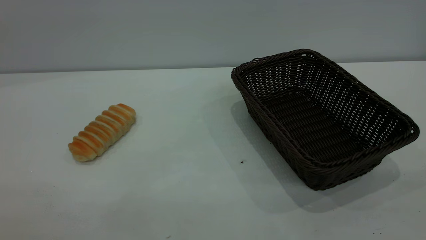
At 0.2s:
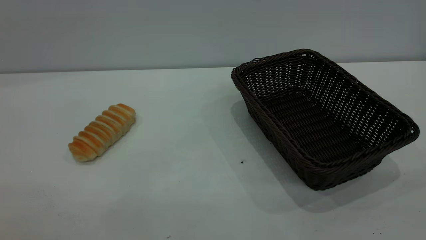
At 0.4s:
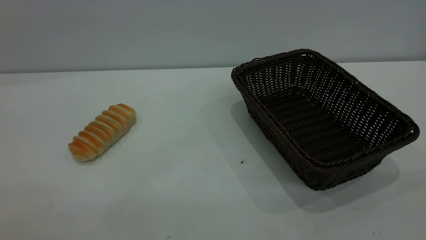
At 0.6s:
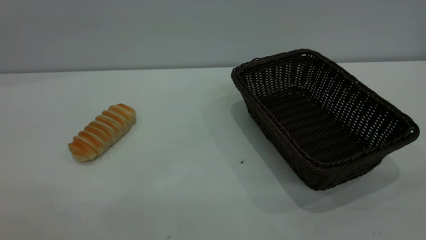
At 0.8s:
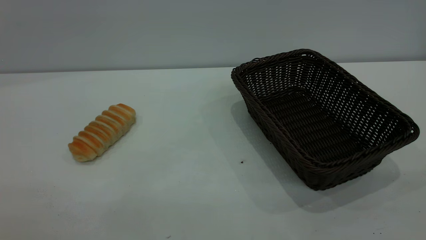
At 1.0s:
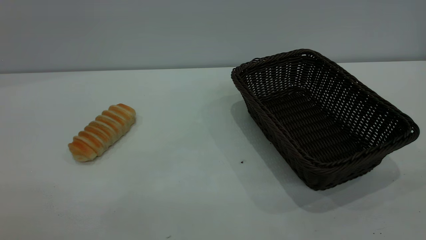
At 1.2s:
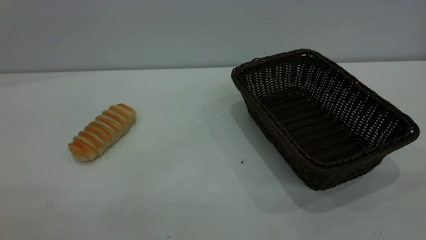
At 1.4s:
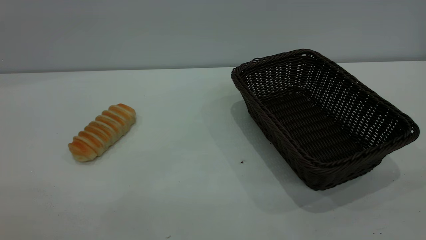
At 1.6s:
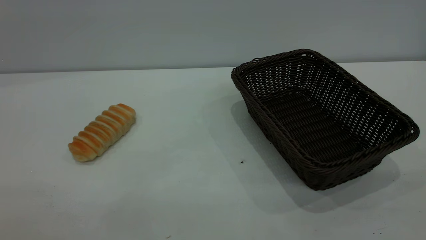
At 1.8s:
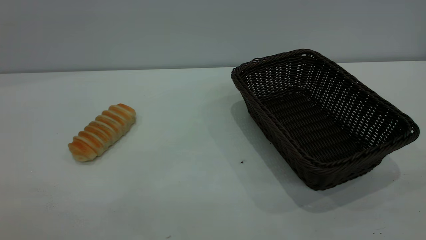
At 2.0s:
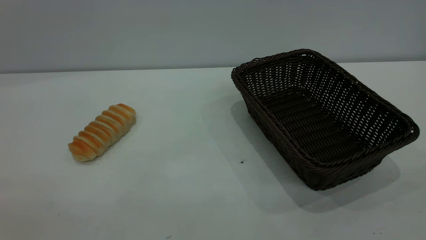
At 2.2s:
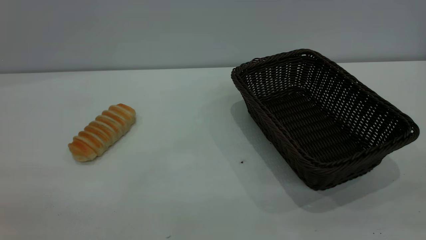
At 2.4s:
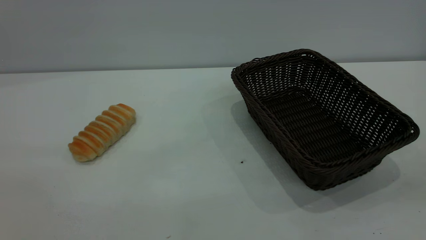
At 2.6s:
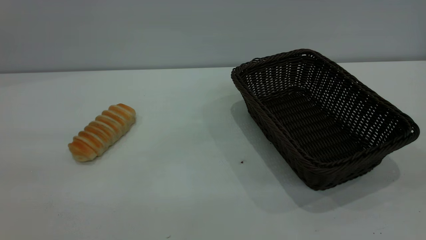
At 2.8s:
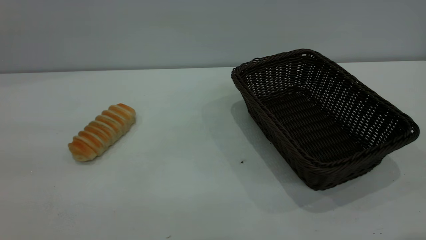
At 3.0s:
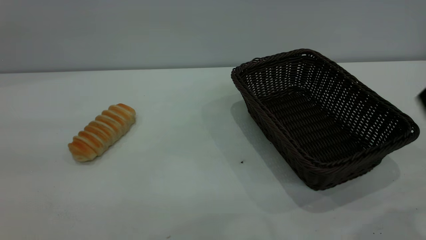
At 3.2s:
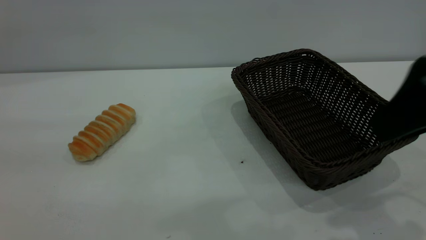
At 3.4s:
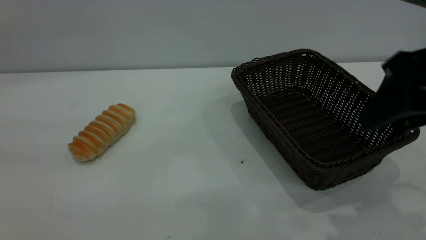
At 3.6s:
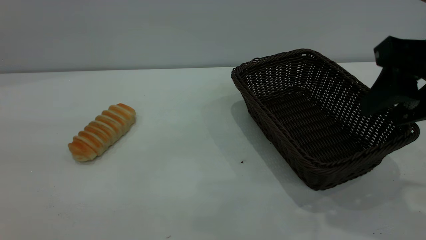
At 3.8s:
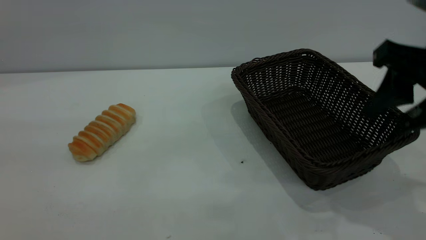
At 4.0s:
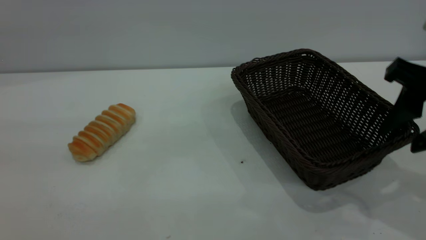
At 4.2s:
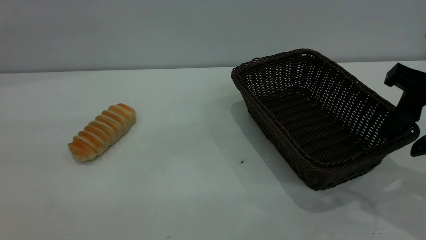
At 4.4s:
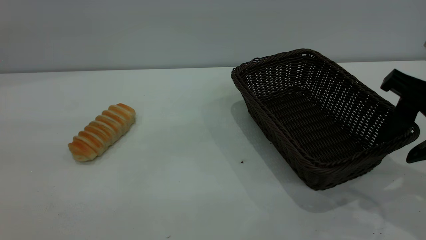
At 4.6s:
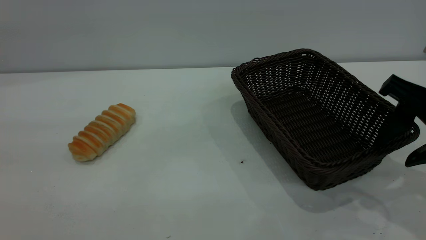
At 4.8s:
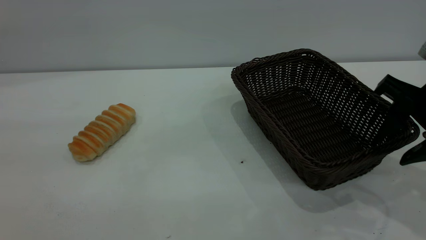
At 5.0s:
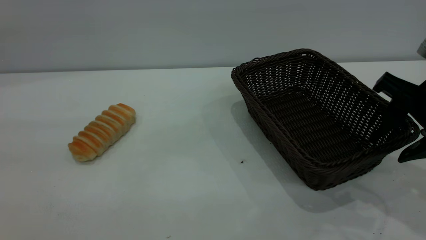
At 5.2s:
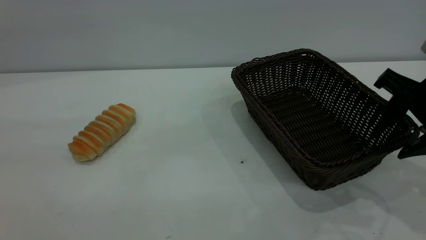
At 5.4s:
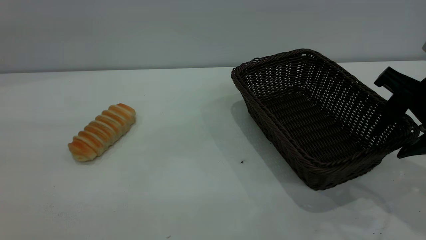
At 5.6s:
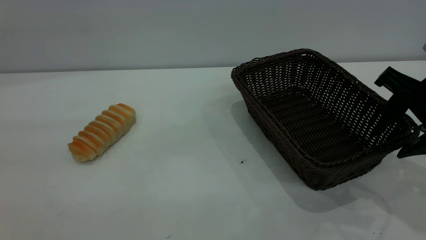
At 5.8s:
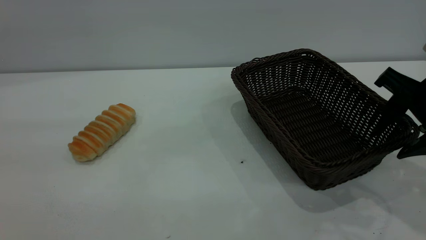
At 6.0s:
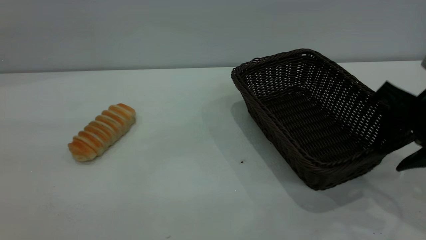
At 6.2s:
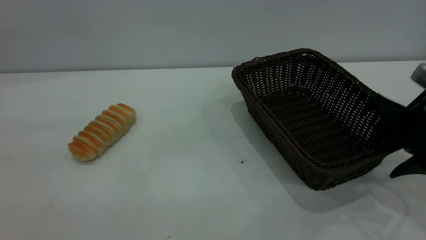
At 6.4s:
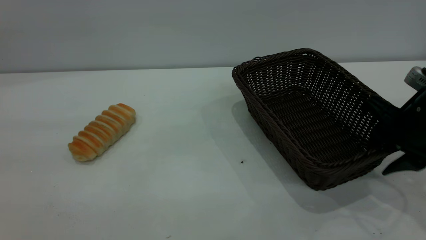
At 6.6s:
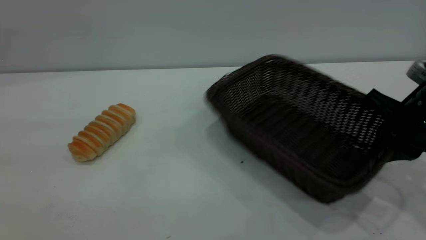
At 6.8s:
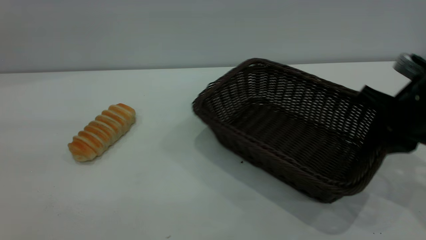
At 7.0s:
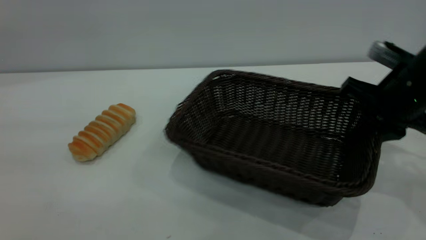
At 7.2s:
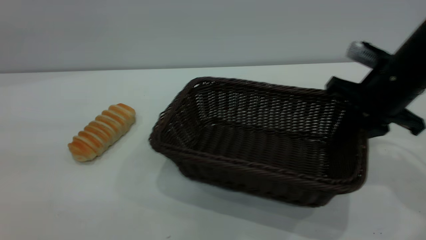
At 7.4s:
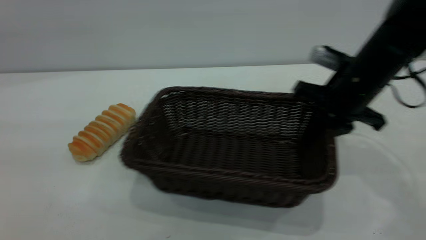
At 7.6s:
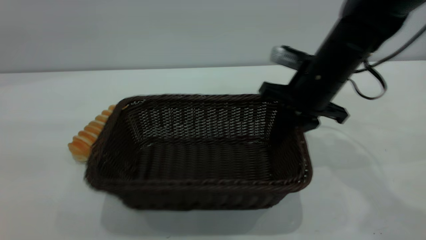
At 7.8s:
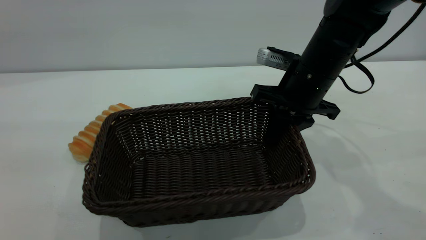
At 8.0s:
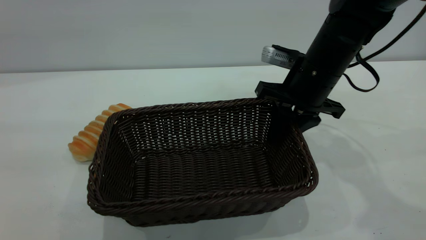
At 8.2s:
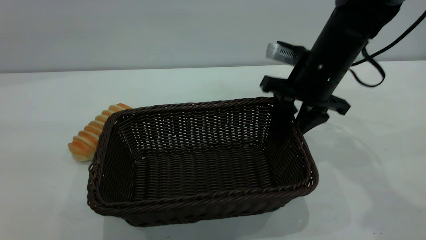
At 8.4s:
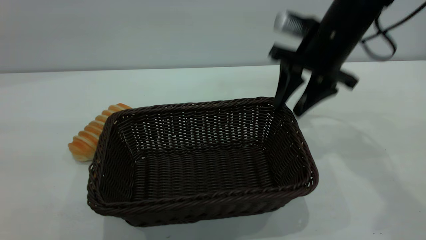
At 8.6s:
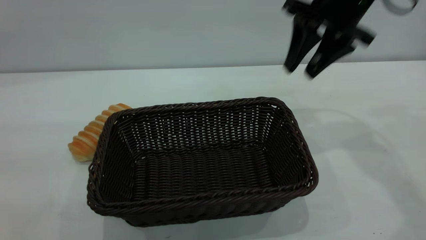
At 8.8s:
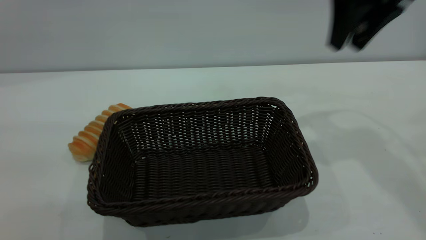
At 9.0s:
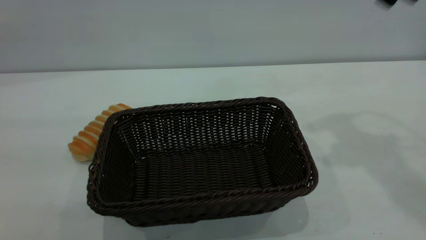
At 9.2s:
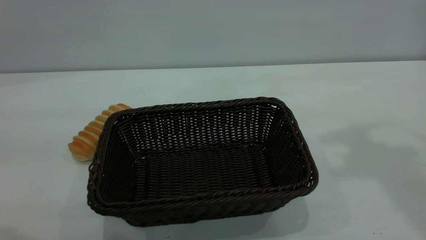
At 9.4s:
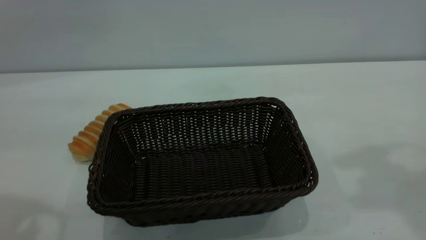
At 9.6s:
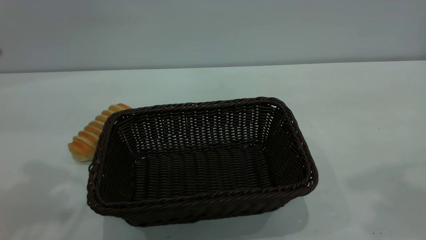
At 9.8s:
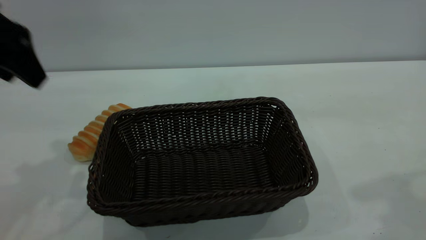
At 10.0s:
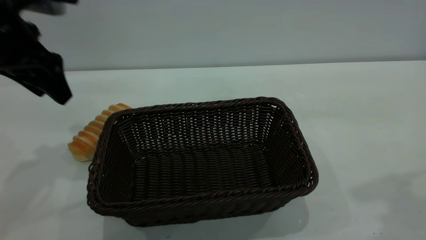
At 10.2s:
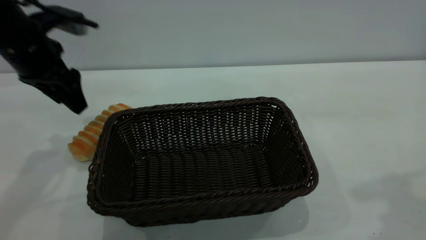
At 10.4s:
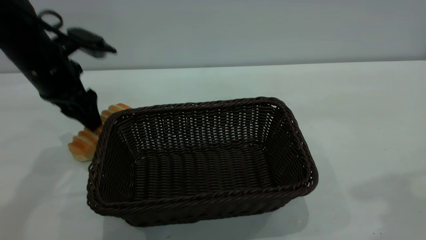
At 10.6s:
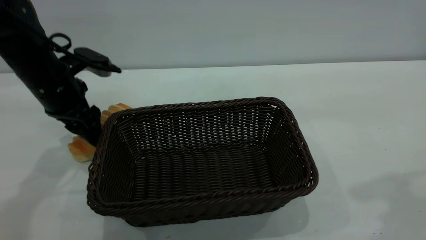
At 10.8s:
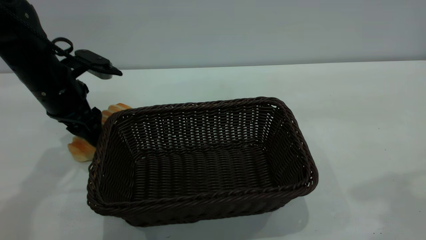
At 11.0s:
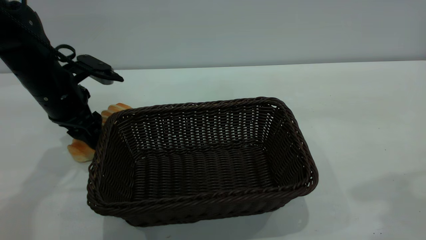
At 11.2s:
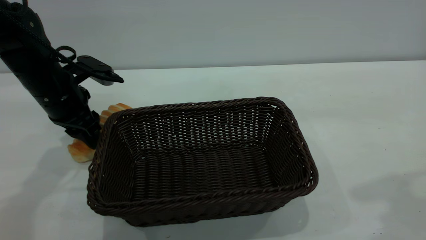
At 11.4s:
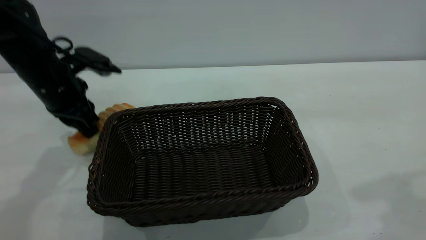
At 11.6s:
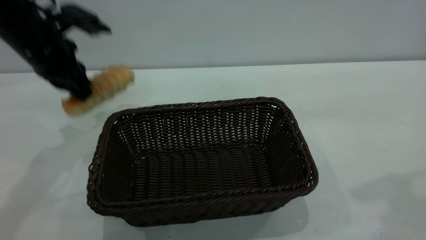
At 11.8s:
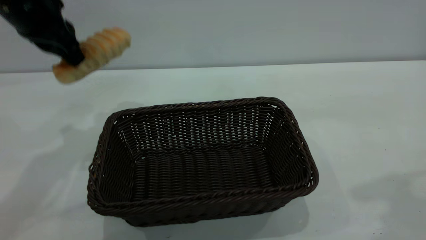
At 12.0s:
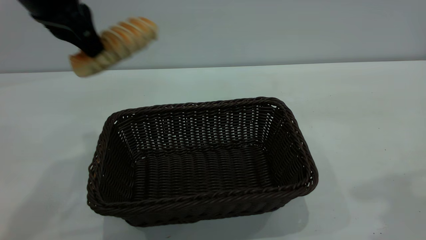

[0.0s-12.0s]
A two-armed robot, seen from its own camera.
Task of the whole recording: One hand grasps the black basket and places it in the middle of the table, while the other hand picks up the long bread and puts it into the black basket.
Step, 0.0s to 8.4s: Move the basket to the center of view.
0.0s to 1.6s: The two grippers keep their place.
3.0s to 4.4s: The right gripper goes about 15 cm downward and forward.
4.4s to 6.0s: The grippers stay close to where they were, moving slightly.
6.0s to 7.6s: The right gripper goes roughly 15 cm to the left and forward, and closes up.
7.6s to 9.0s: The right gripper is displaced upward by about 25 cm, and opens.
9.0s to 10.4s: The left gripper is displaced forward and downward by approximately 35 cm.
10.4s to 12.0s: The left gripper travels upward and to the right by roughly 15 cm, and closes its fingers.

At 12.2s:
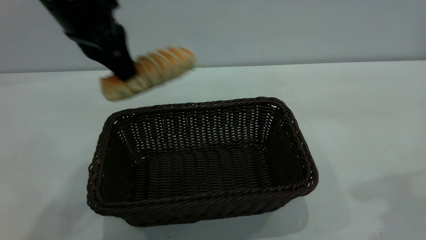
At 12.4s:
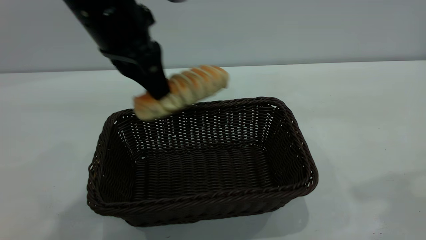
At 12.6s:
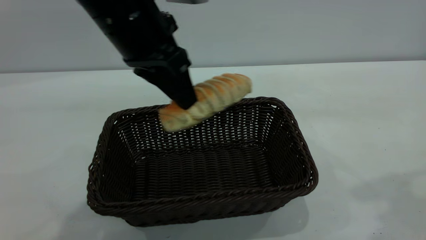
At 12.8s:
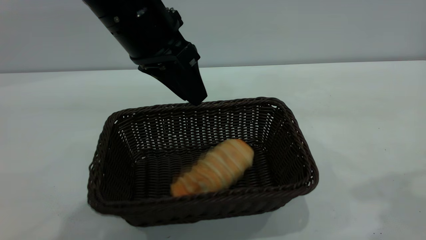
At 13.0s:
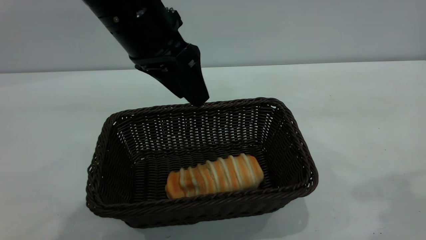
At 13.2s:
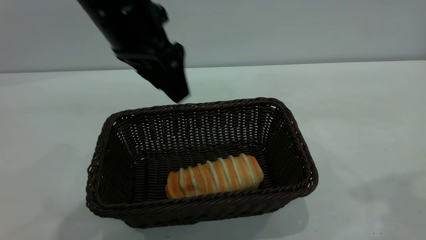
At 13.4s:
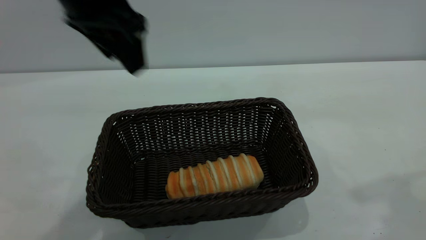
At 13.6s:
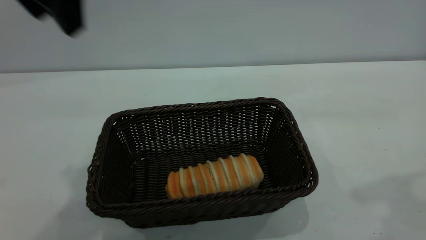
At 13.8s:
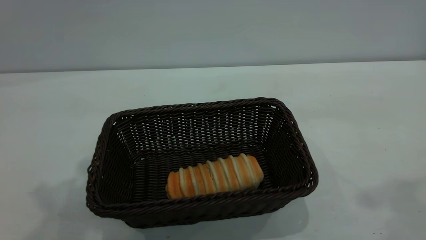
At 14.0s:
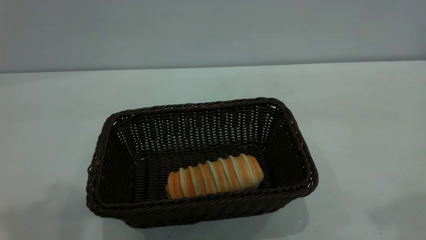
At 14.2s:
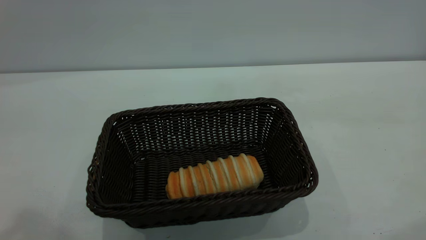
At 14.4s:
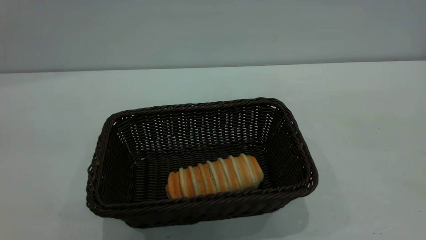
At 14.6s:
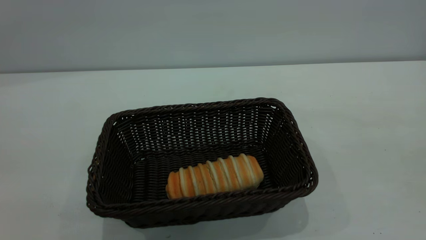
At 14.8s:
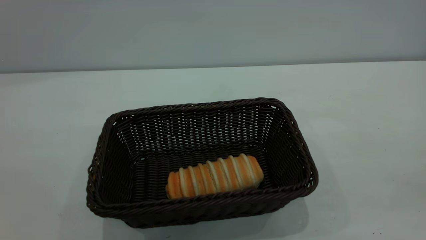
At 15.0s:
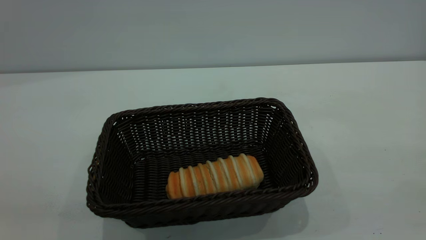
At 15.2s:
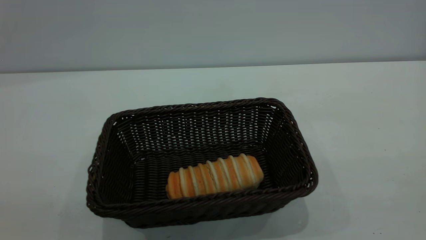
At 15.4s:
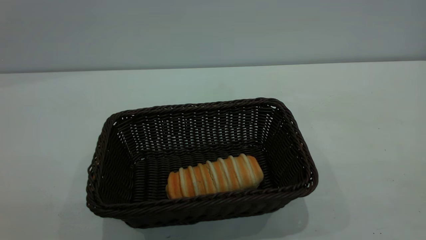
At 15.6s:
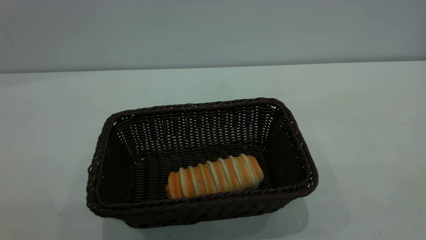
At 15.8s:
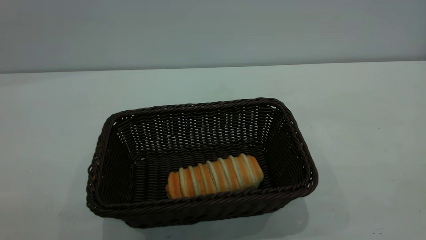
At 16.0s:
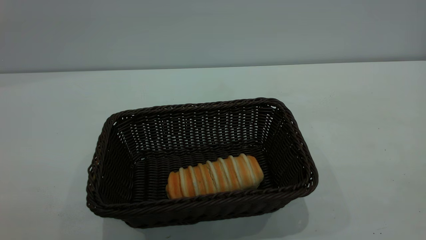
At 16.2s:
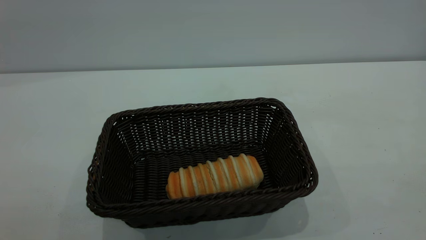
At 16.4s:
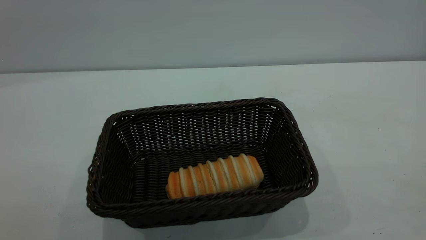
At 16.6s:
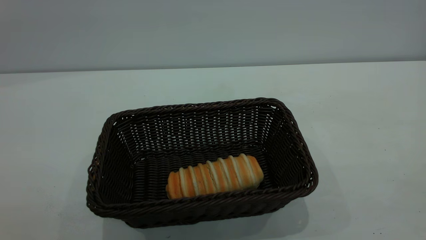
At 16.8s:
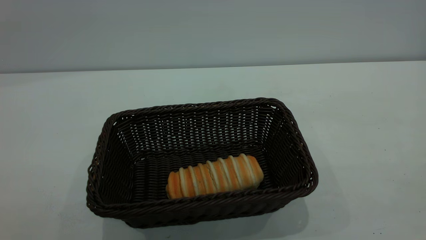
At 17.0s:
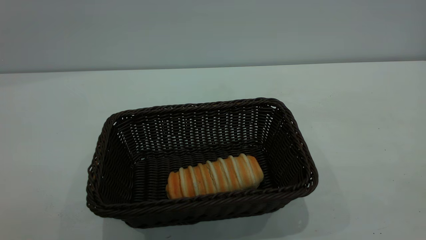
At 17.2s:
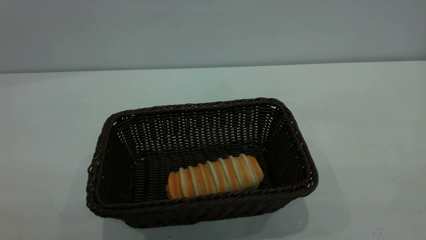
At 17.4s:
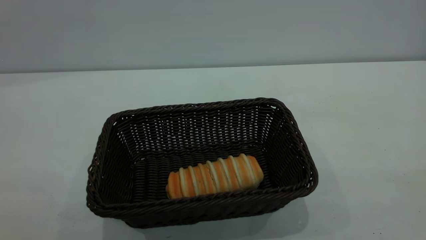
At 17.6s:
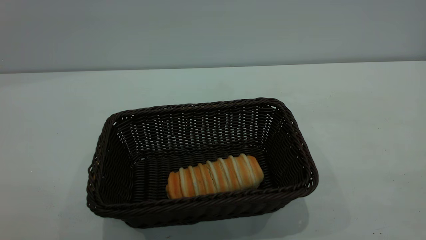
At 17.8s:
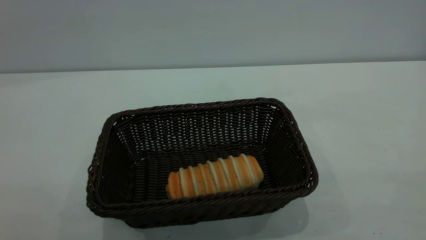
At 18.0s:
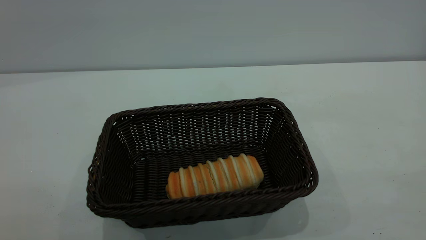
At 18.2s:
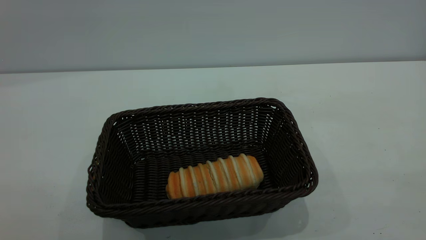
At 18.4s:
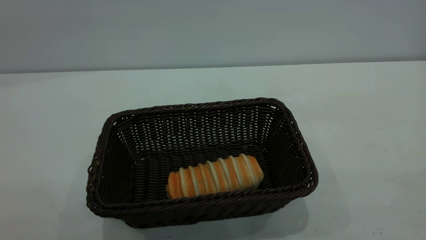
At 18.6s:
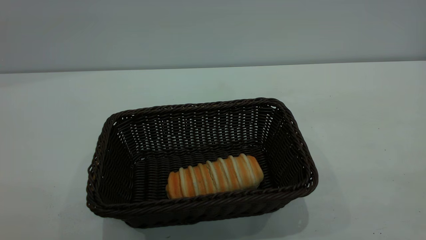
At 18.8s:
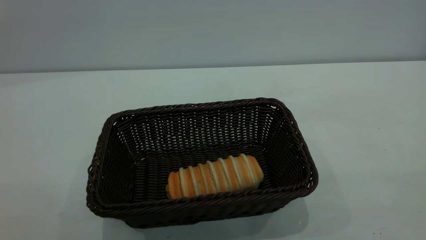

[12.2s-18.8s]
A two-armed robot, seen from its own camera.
Task of the whole recording: One hand grasps the black basket and places it in the middle of the table, while the other hand picks up the long bread and puts it into the black basket.
Step, 12.2s to 13.2s: place the bread into the basket.
12.2s to 13.8s: The left gripper goes approximately 20 cm upward and backward, and opens up.
